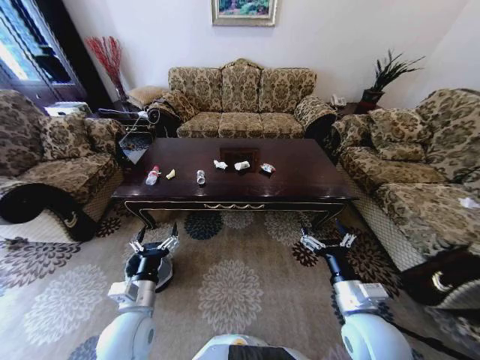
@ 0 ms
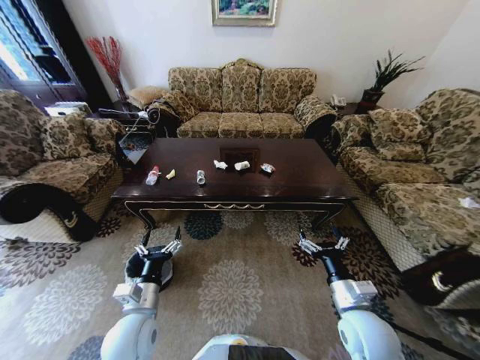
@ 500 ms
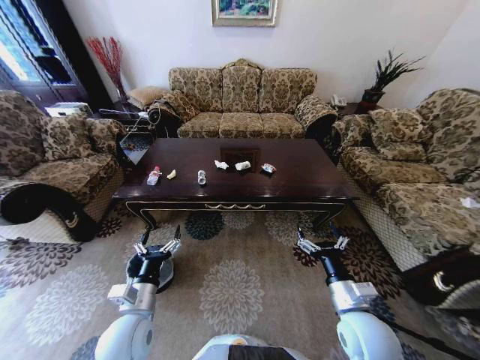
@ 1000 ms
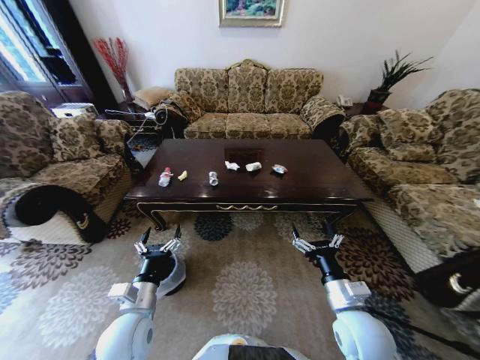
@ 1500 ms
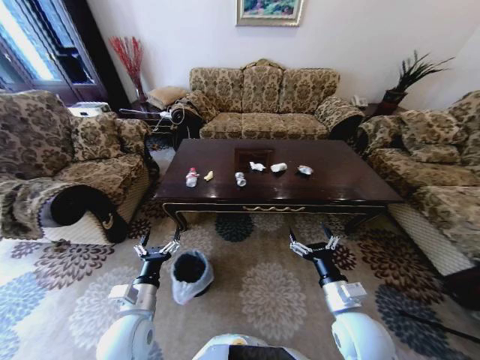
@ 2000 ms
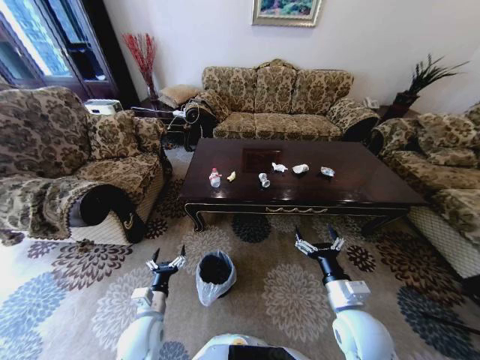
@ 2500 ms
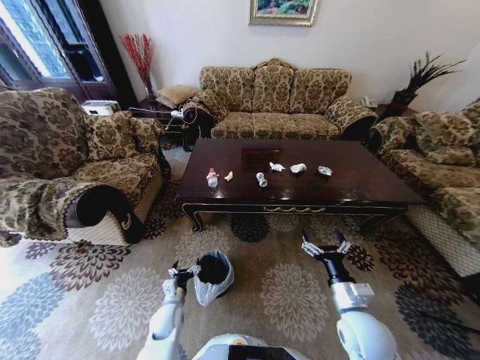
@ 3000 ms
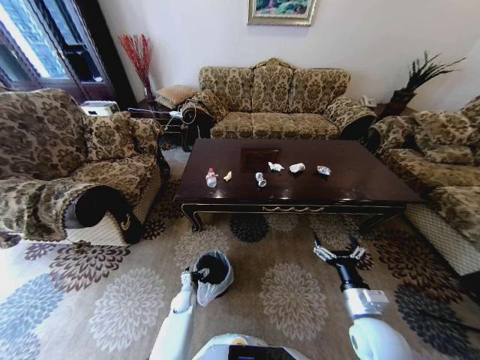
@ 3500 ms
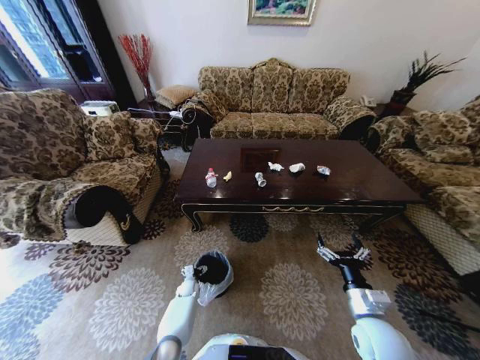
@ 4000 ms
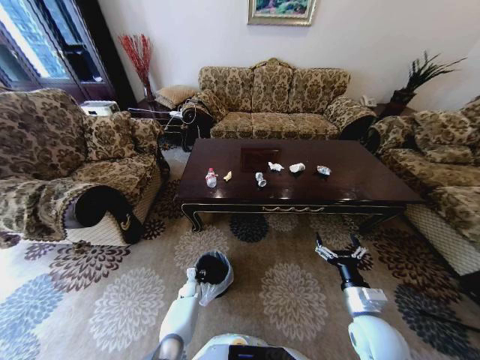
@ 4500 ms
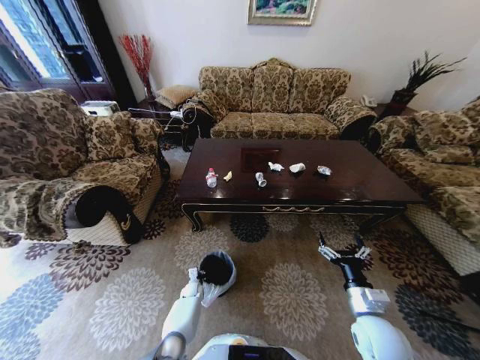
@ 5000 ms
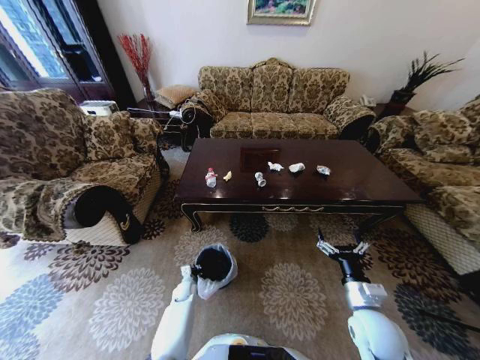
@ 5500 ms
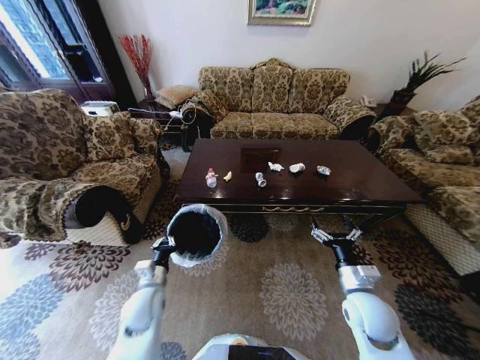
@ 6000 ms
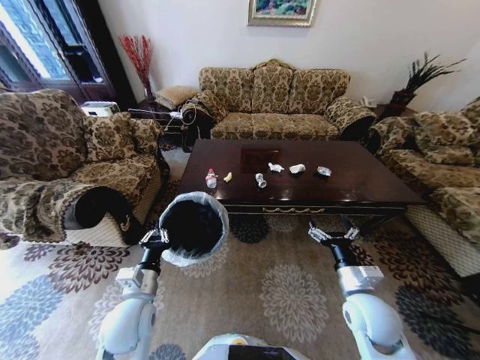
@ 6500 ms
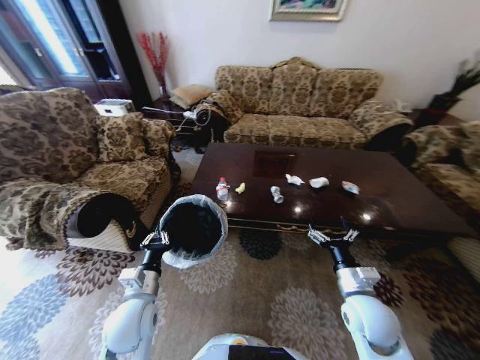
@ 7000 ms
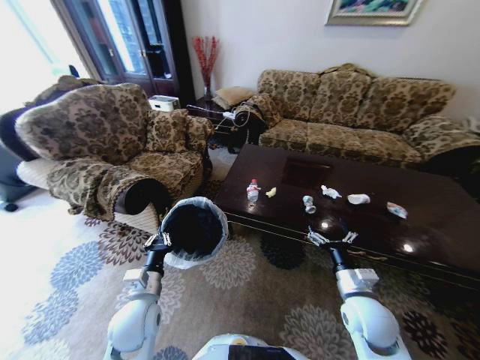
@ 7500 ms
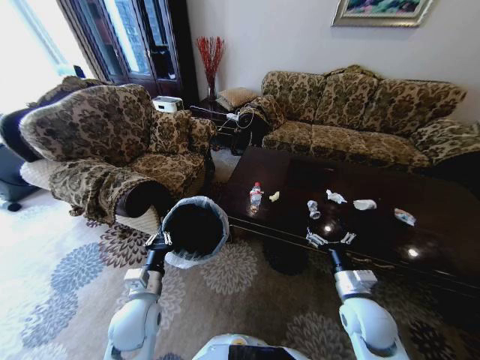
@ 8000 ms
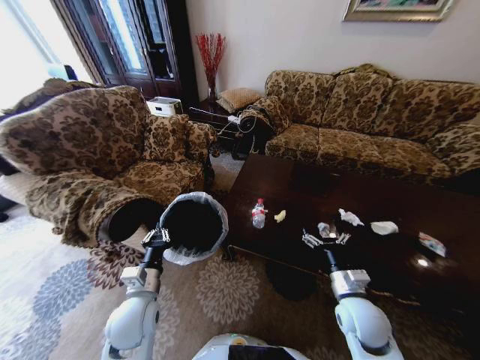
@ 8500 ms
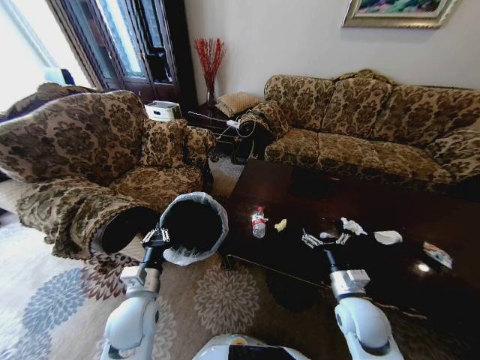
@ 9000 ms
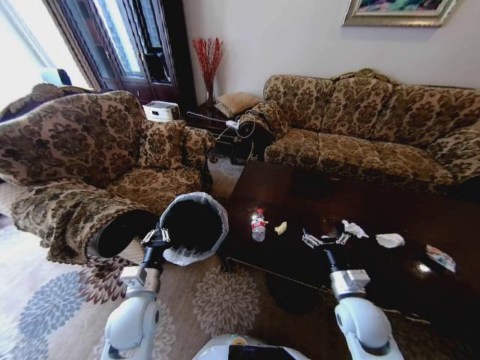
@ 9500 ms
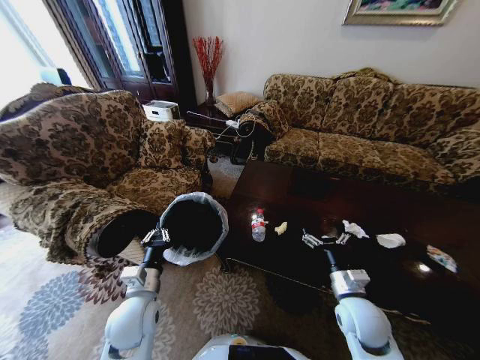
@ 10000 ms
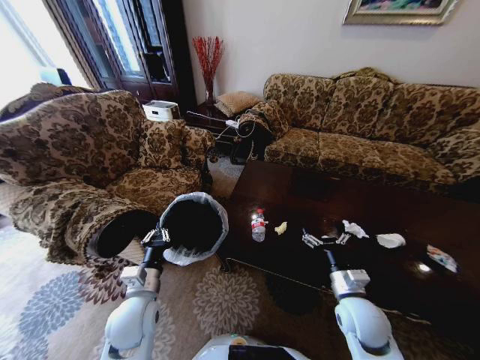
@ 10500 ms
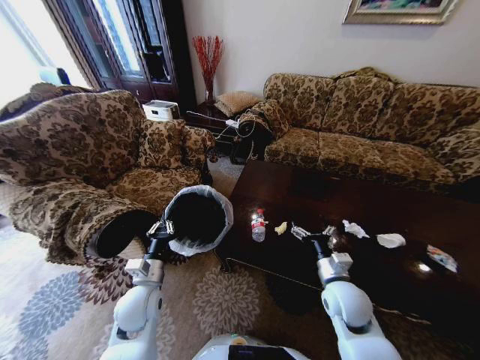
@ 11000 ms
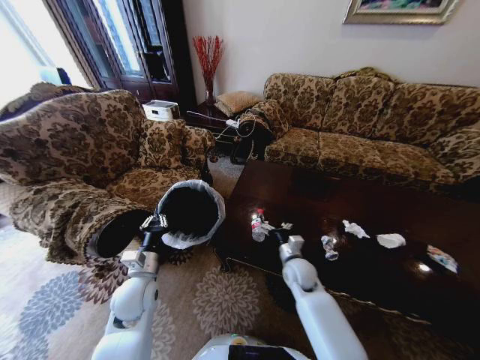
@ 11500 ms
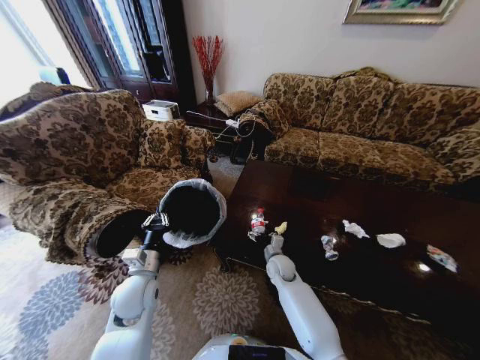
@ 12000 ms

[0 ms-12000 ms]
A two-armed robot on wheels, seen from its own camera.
Task of the whole recording: Move to the front of the table and place the trash on the table into the trash bin.
2000 ms to 4000 ms: The left gripper is displaced downward and forward by approximately 40 cm; the right gripper heads to the right, covering approximately 5 cm.
4000 ms to 6000 ms: The left gripper is displaced upward and backward by some 30 cm, and closes its fingers. The right gripper changes place by some 5 cm.
6000 ms to 8000 ms: The left gripper ends up about 5 cm from where it was.
10000 ms to 12000 ms: The right gripper travels forward, to the left and downward by approximately 25 cm, while the left gripper moves about 5 cm.

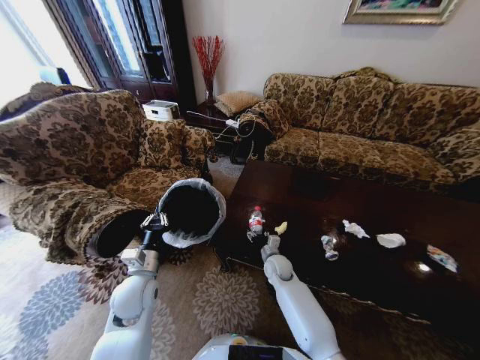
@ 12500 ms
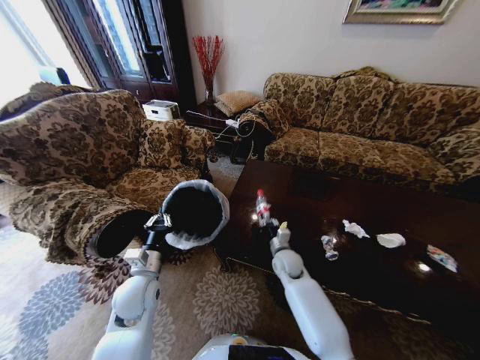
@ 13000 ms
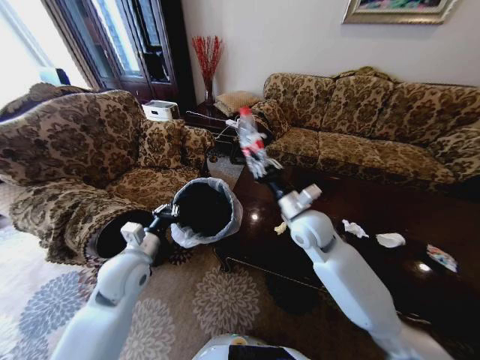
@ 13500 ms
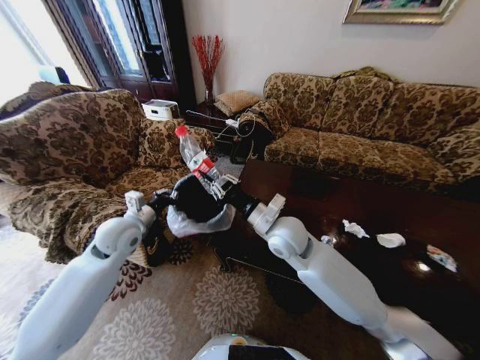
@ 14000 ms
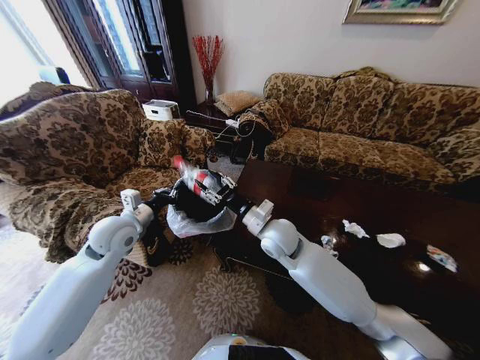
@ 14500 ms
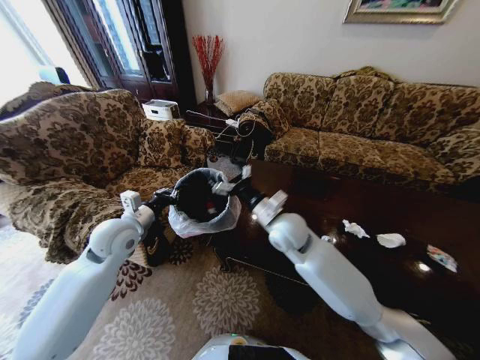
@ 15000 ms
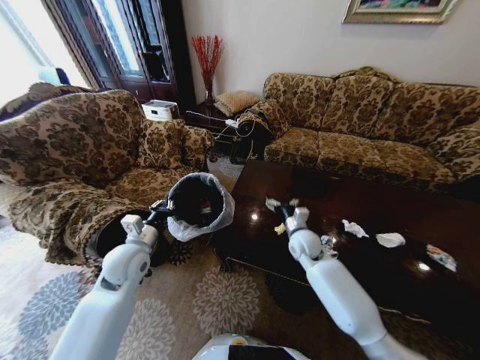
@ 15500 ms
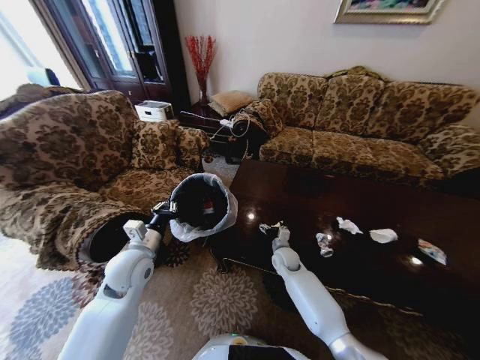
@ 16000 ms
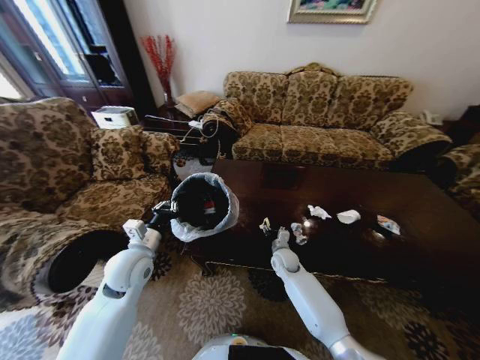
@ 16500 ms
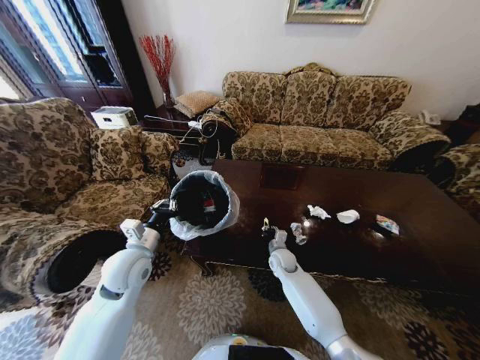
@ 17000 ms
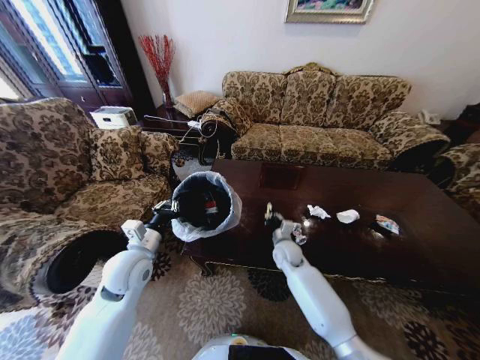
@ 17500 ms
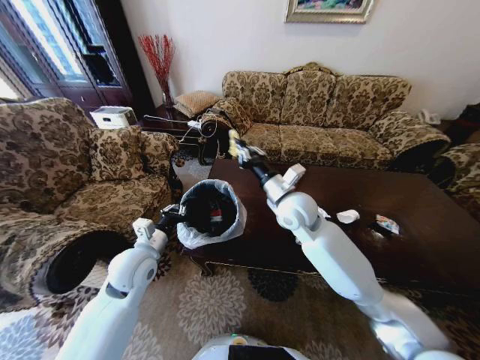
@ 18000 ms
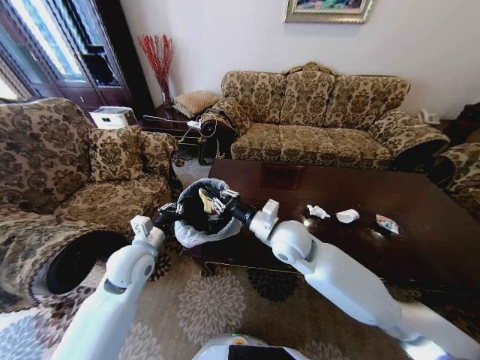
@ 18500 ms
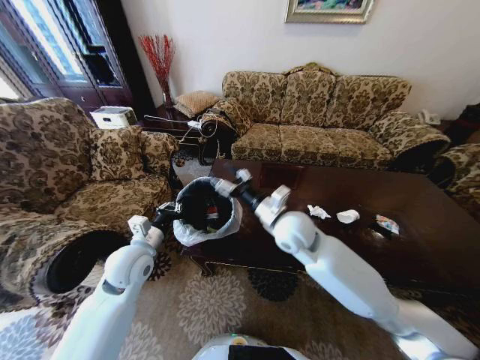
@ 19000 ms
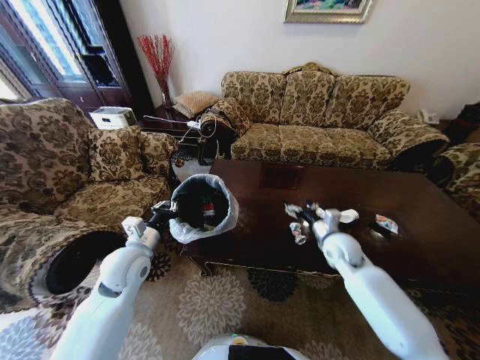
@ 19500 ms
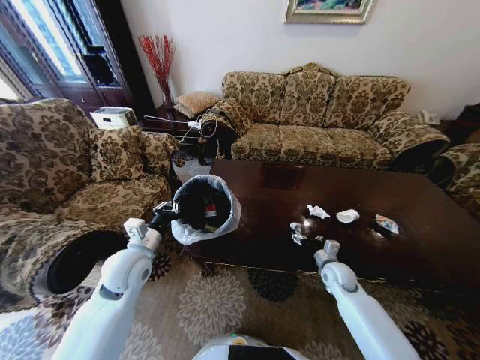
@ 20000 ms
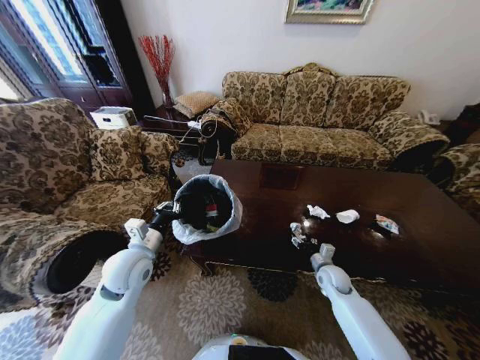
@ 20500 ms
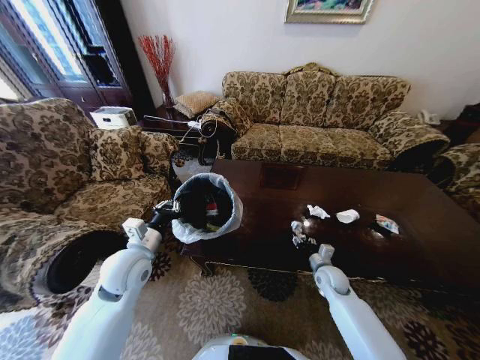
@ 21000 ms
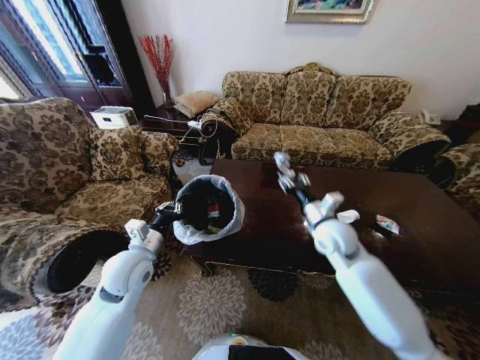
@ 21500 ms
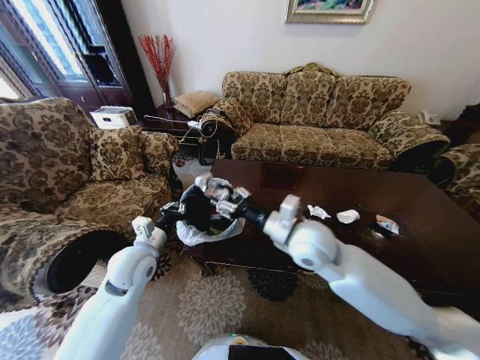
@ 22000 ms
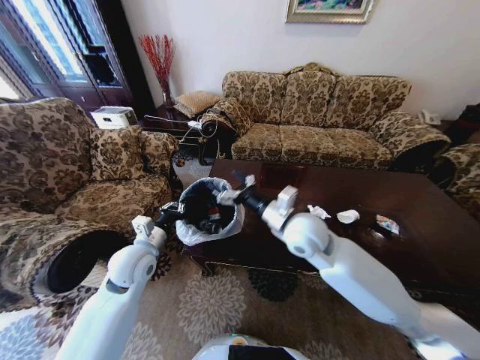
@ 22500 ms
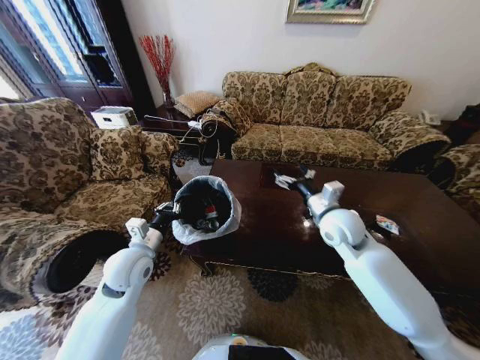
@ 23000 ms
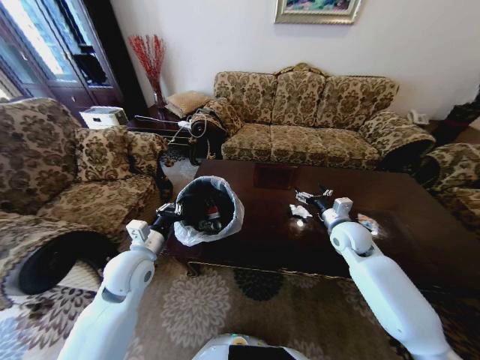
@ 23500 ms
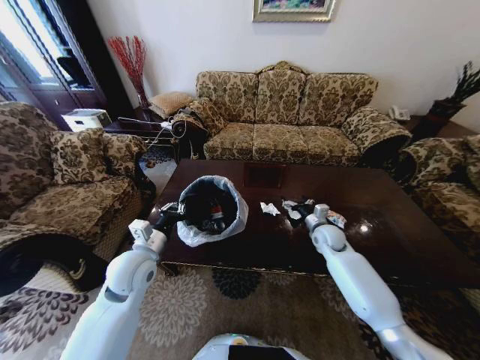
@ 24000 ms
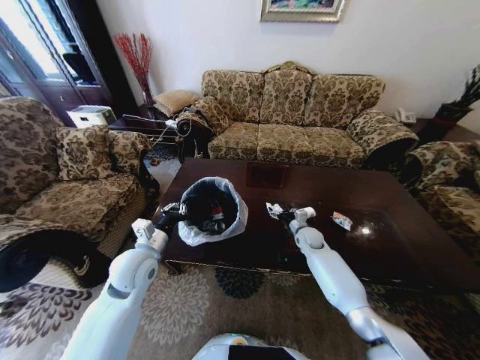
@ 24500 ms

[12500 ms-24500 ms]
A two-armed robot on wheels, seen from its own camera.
Task of the whole recording: Move to the front of the table and place the trash on the table into the trash bin.
12500 ms to 14500 ms: The right gripper shifts some 25 cm upward, and closes, then opens again; the left gripper goes some 15 cm upward, forward and to the left.
14500 ms to 16500 ms: The left gripper shifts approximately 10 cm downward and backward. Meanwhile the right gripper goes about 25 cm downward.
16500 ms to 18500 ms: The right gripper heads upward, covering about 25 cm, and closes.
18500 ms to 20500 ms: The right gripper goes some 35 cm downward and to the right, and opens.
20500 ms to 22500 ms: The right gripper shifts roughly 35 cm upward and to the left.
22500 ms to 24500 ms: The right gripper travels downward, forward and to the right by some 30 cm.

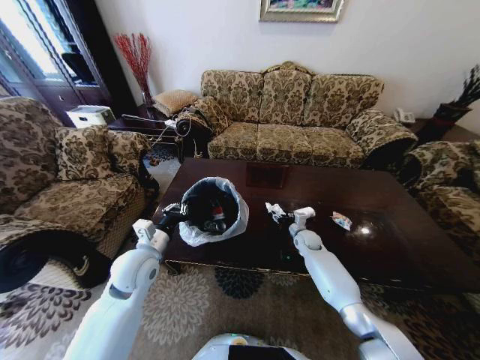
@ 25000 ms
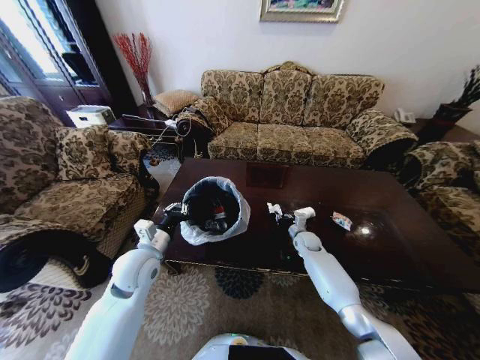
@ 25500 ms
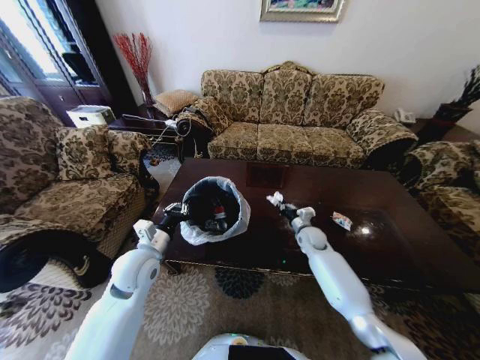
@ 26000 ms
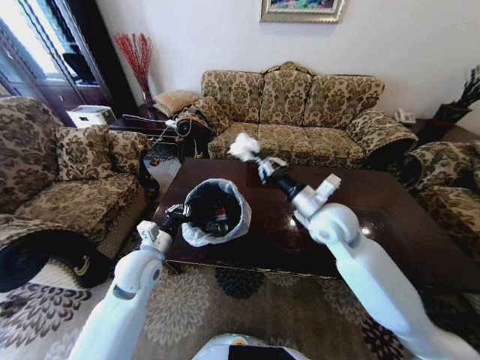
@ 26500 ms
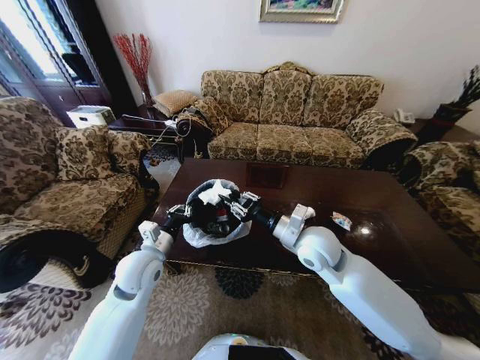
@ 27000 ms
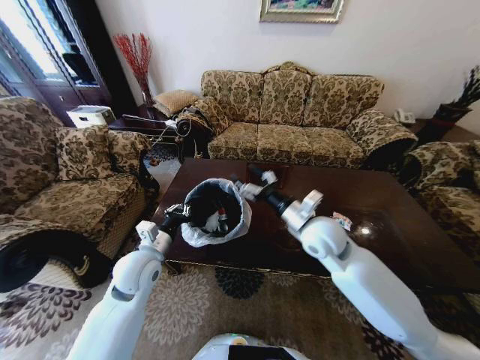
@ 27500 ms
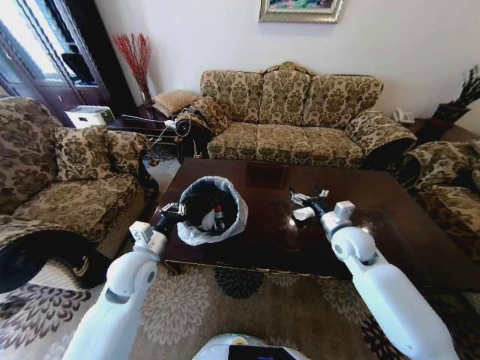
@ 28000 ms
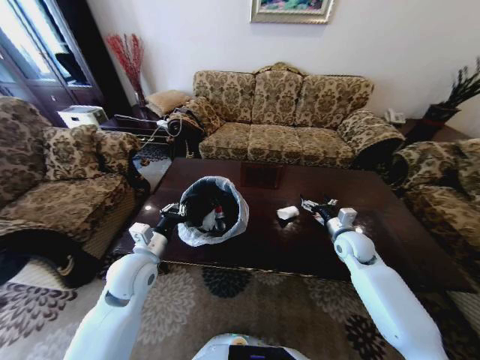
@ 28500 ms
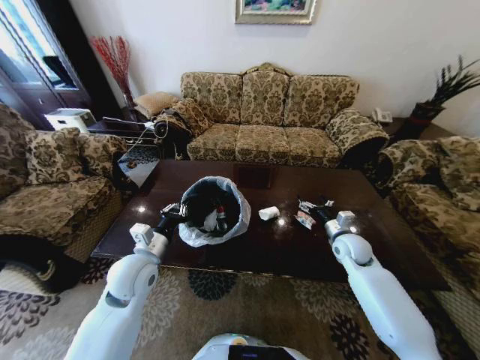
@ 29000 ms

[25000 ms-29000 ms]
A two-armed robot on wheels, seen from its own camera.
Task of the whole recording: Move to the front of the table and place the trash on the table into the trash bin.
25000 ms to 27000 ms: The right gripper is displaced upward, backward and to the left by about 30 cm, and closes.
27000 ms to 29000 ms: The right gripper moves to the right, downward and forward, some 20 cm, and opens its fingers.
